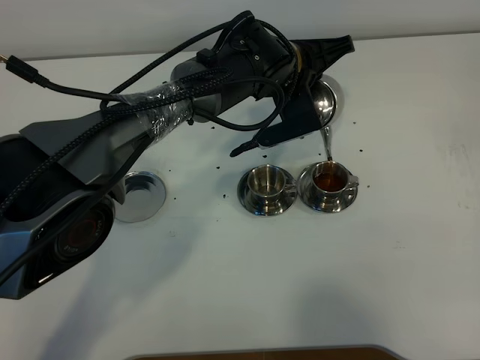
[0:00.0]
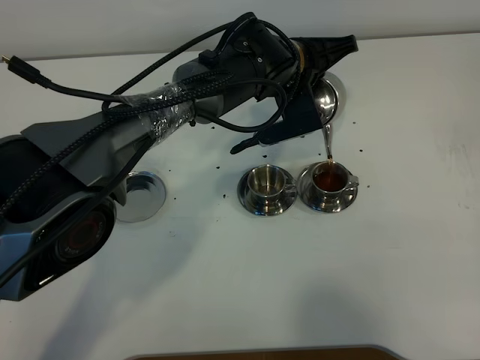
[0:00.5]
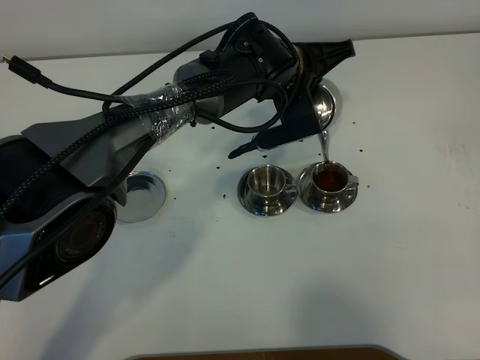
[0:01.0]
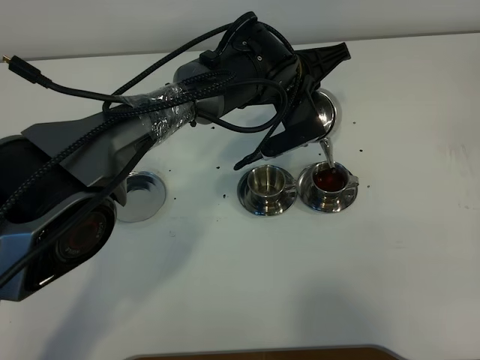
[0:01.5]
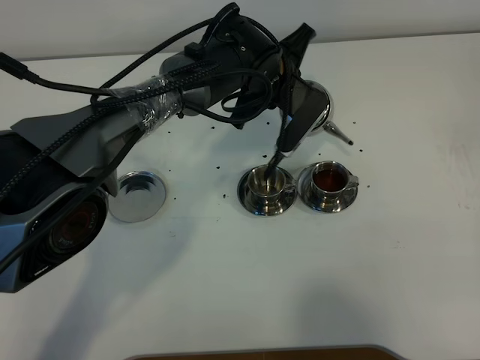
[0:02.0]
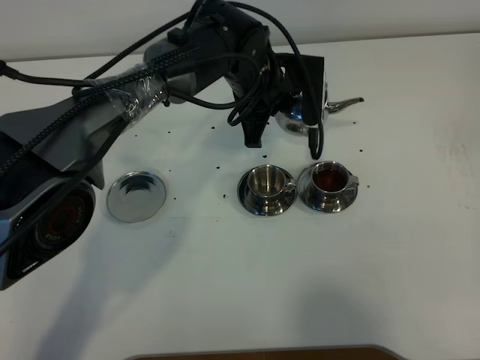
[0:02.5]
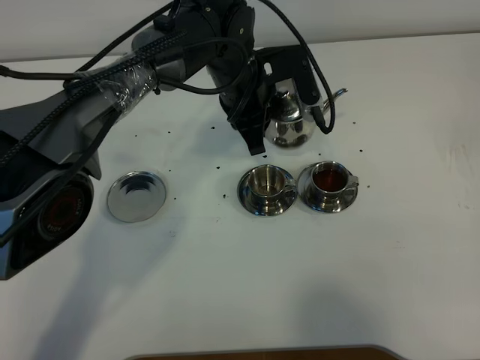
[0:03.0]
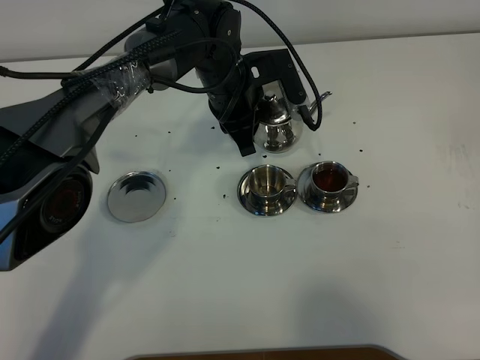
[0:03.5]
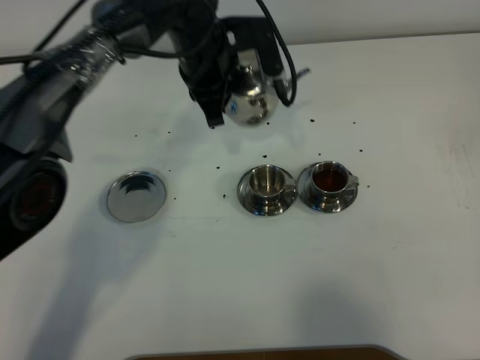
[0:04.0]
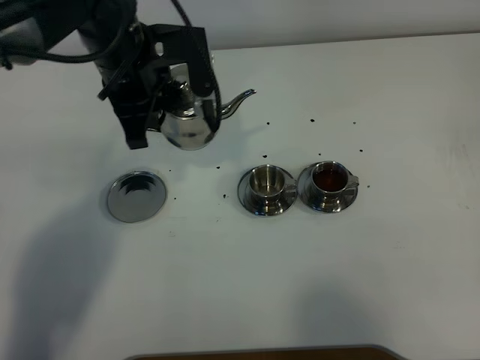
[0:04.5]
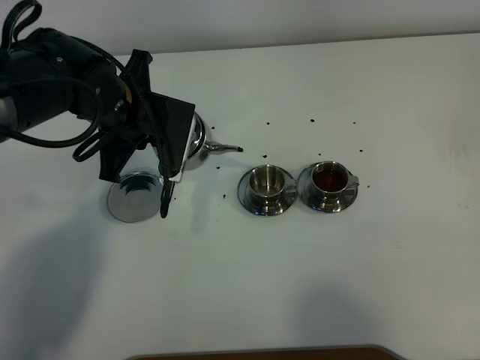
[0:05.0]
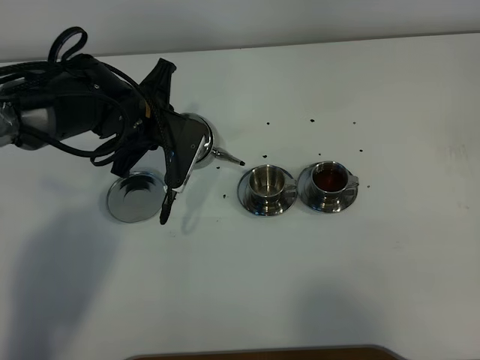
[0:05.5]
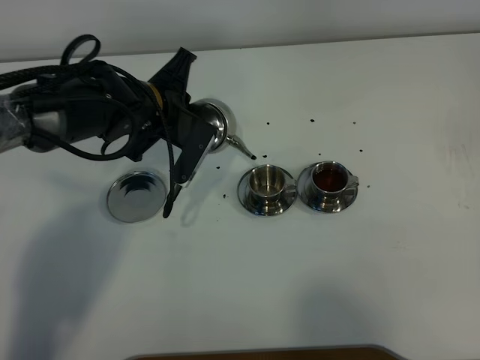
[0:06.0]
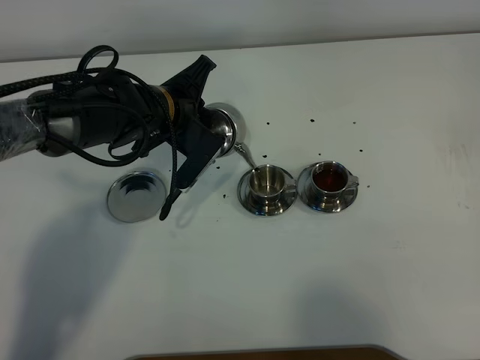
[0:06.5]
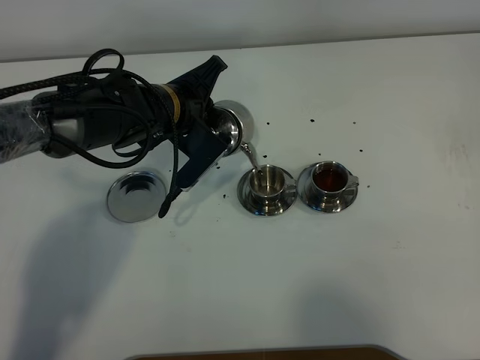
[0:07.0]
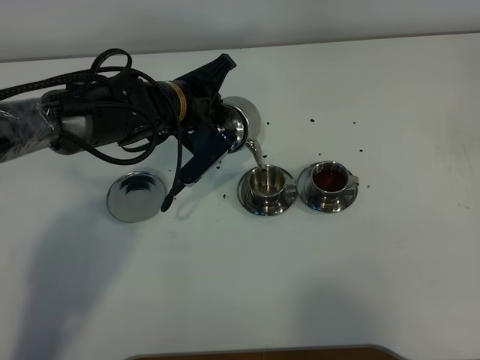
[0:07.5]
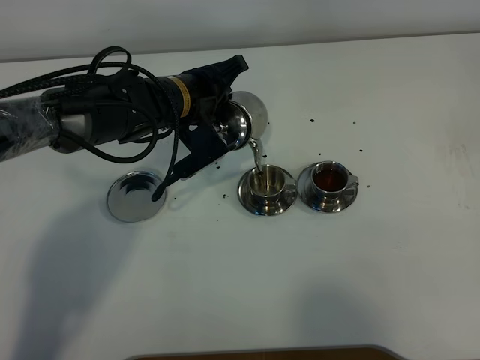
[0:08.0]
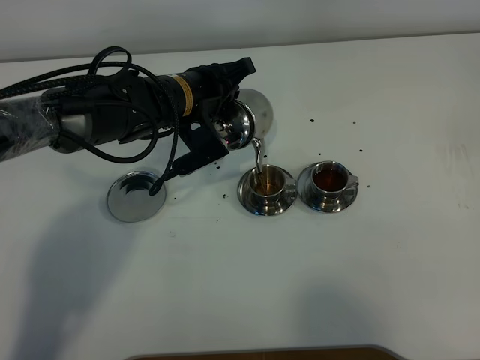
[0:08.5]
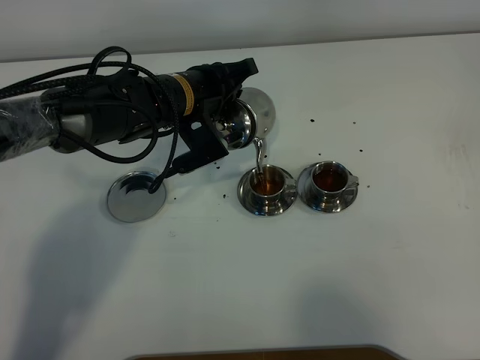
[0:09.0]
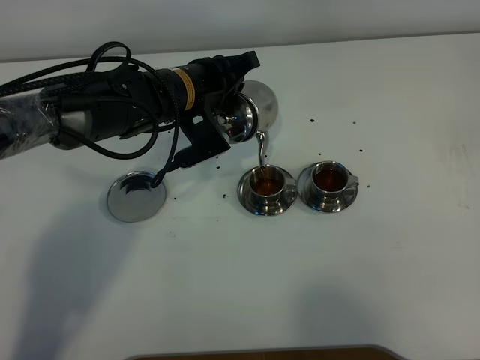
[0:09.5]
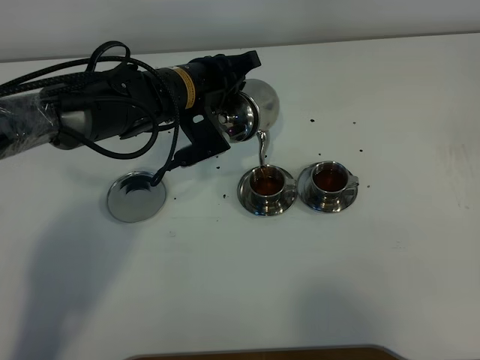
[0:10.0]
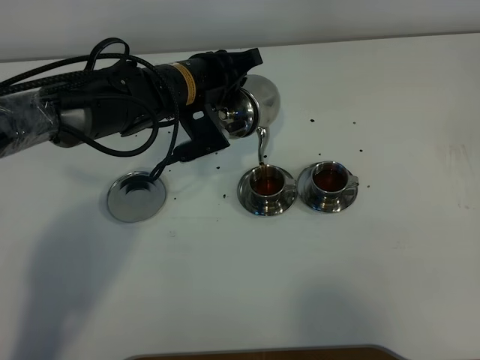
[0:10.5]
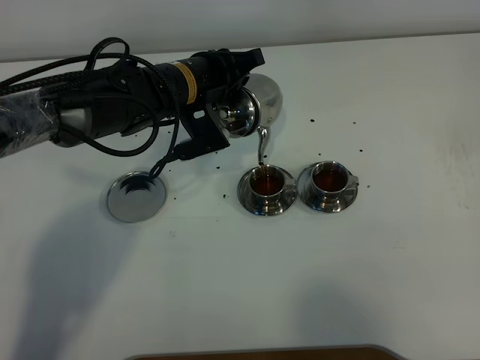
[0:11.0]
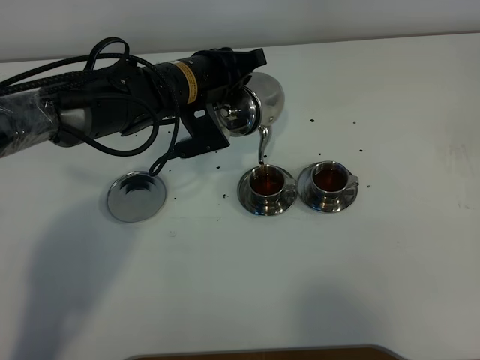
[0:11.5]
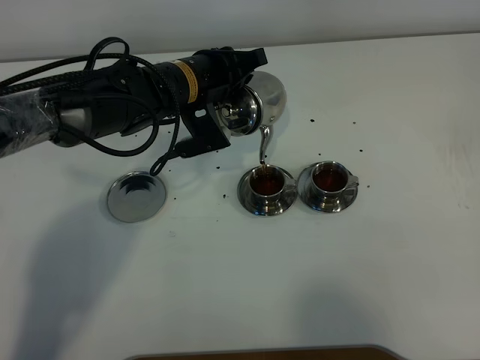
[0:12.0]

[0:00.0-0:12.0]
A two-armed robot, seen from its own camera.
Task of the whole recording: grasp the stainless steel teapot and pour the tea into the two stainless steel teacups one by one, put the stainless steel teapot back in its original place.
0:02.0 to 0:04.0: The left gripper moves to the left and upward, some 10 cm.
0:04.0 to 0:06.0: The left gripper heads downward, to the left and backward, covering approximately 10 cm.
0:08.0 to 0:12.0: There are only small adjustments of the grippers.

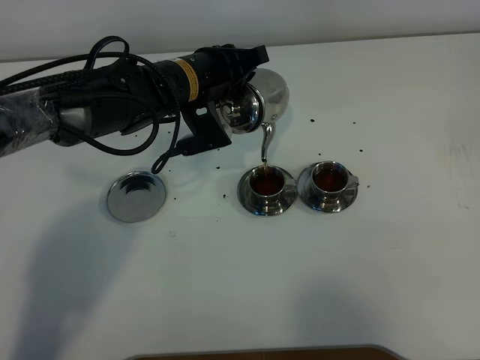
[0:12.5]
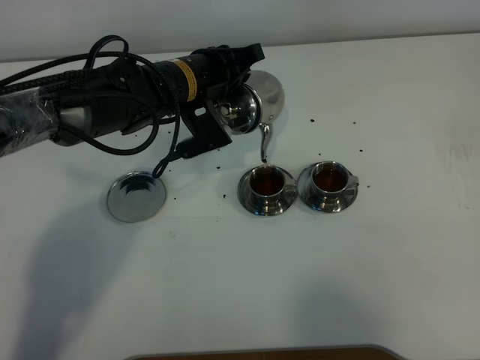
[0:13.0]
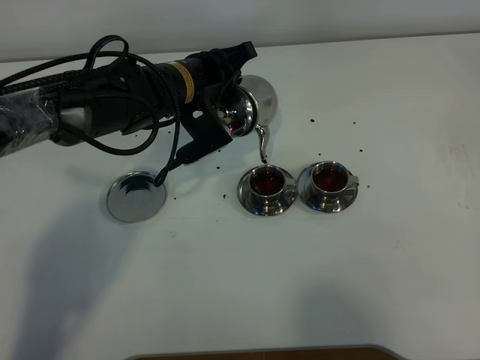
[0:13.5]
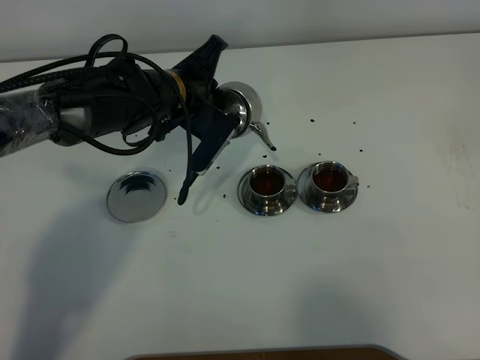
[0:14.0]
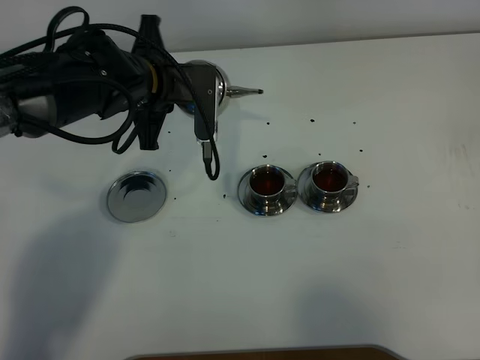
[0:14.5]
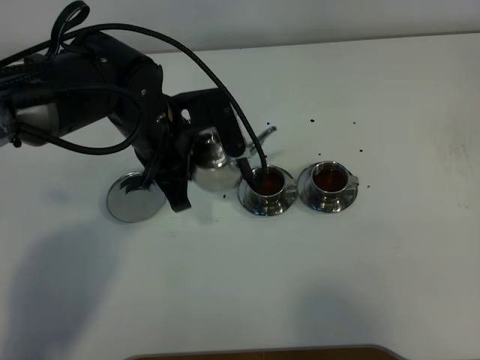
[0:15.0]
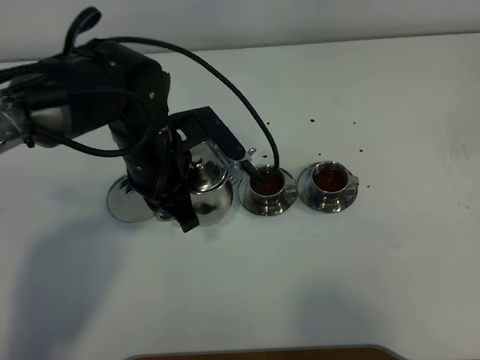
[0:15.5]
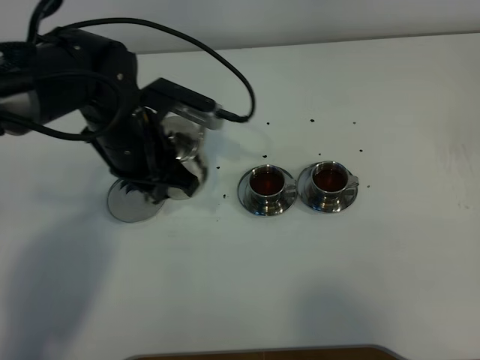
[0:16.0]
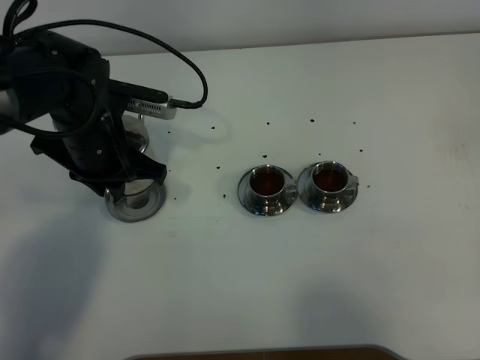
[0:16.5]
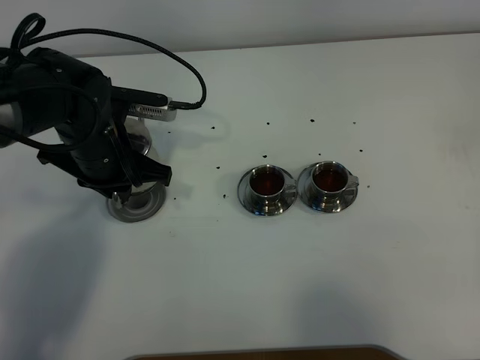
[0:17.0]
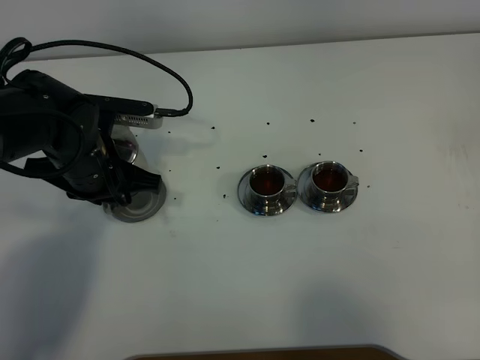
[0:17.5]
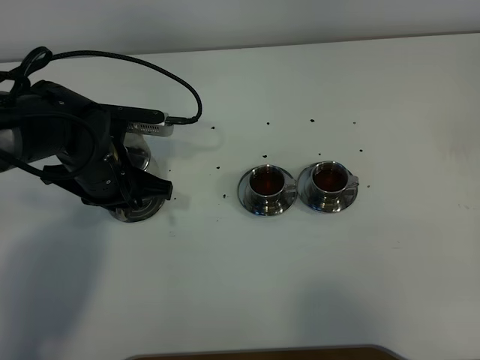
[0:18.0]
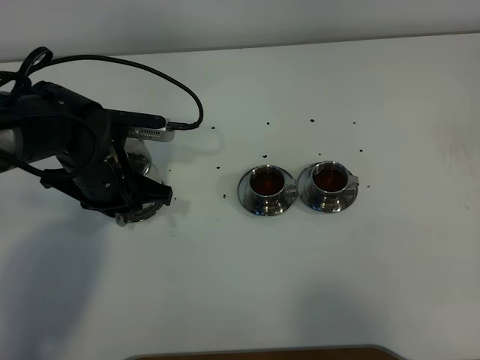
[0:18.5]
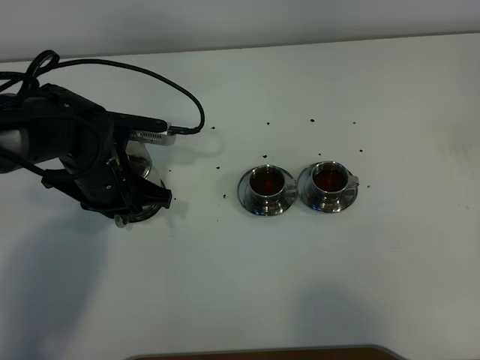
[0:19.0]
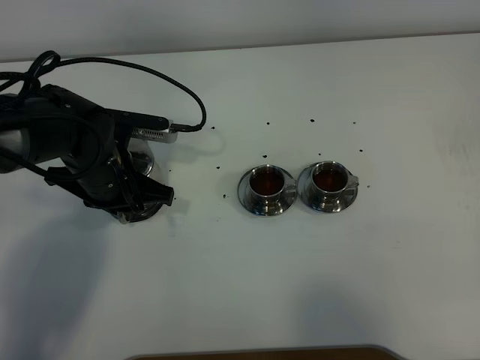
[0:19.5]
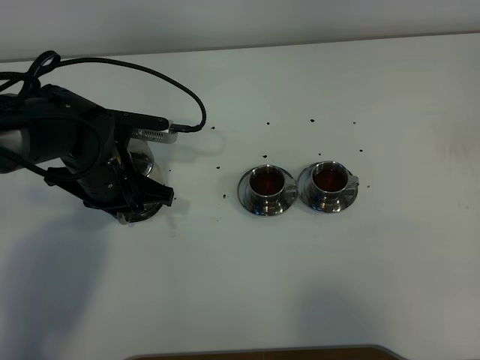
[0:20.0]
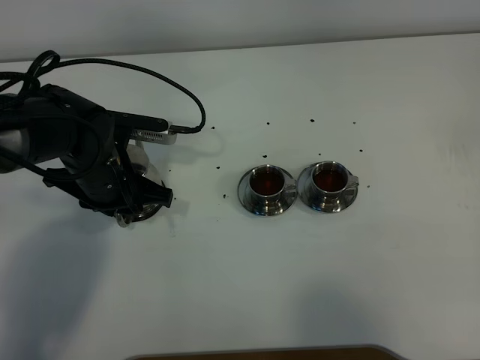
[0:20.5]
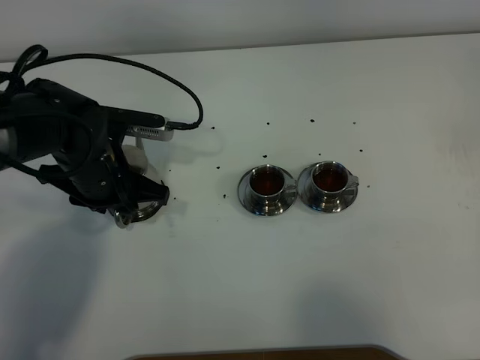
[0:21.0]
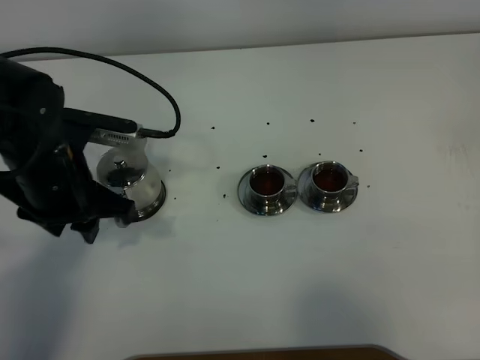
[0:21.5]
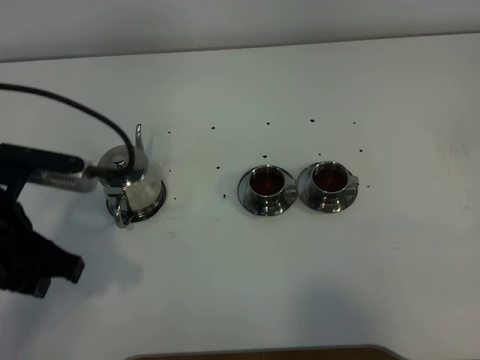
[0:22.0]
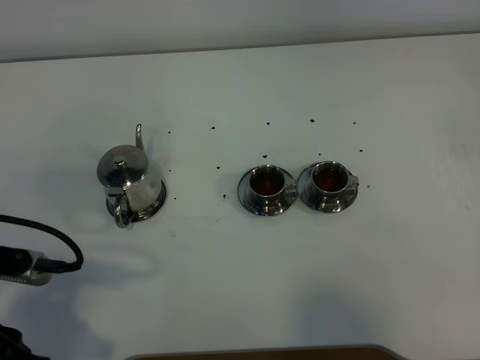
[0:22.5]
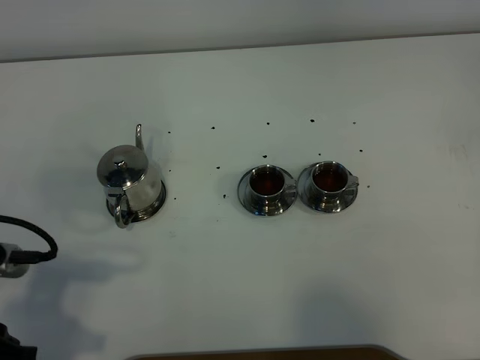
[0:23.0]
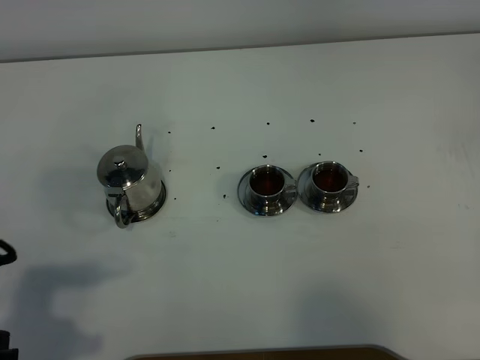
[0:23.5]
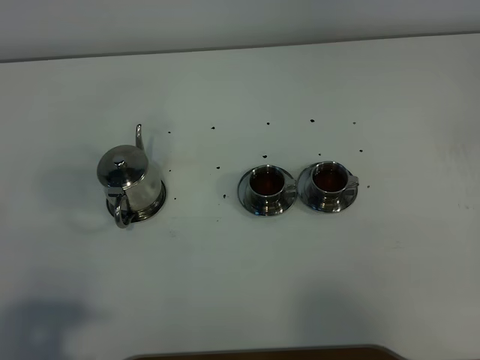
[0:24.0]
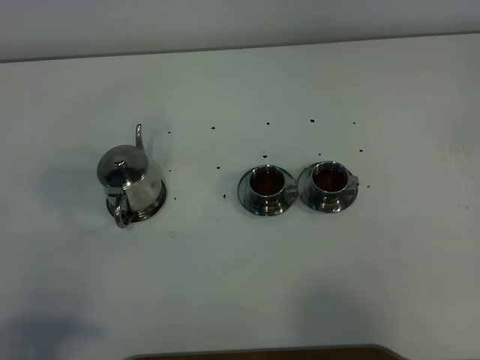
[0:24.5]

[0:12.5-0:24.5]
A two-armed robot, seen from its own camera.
Task of the whole recording: grasp the stainless steel teapot and pour the tea into the two stainless steel teacups one by one, put the stainless steel teapot back in its original place.
0:12.5 to 0:14.5: The left gripper shifts about 5 cm to the left.
0:14.5 to 0:16.5: The left gripper is displaced to the left by some 5 cm.
0:16.5 to 0:18.5: There are only small adjustments of the grippers.
0:18.5 to 0:20.5: The left gripper opens its fingers.
0:20.5 to 0:22.5: The left gripper travels backward by about 20 cm, and opens.
0:22.5 to 0:24.5: The left gripper heads backward, covering roughly 10 cm.

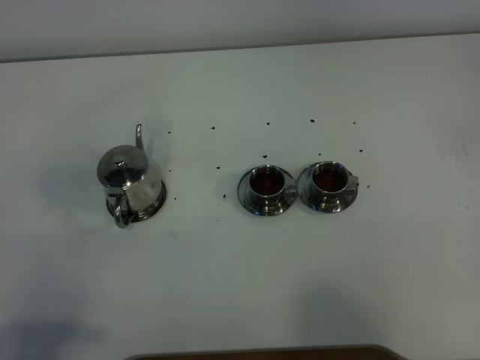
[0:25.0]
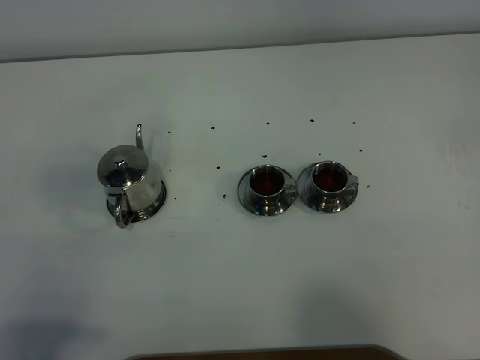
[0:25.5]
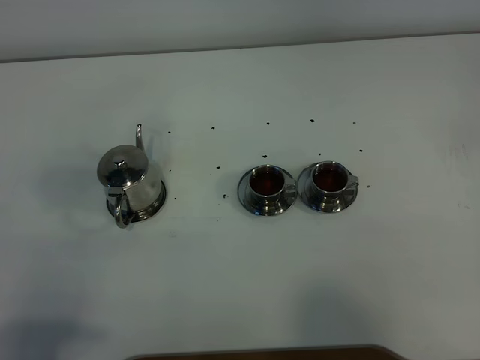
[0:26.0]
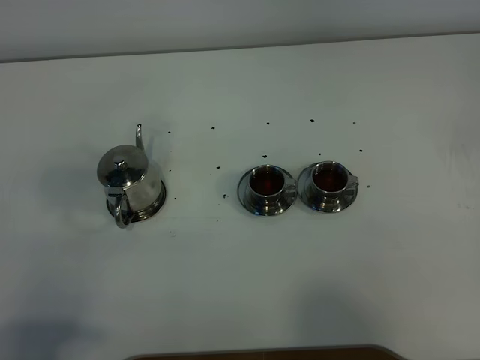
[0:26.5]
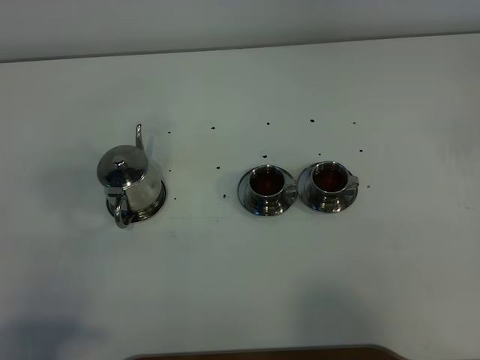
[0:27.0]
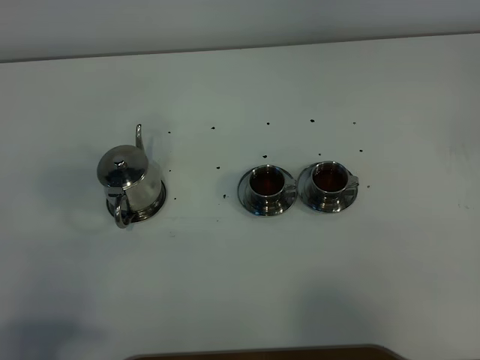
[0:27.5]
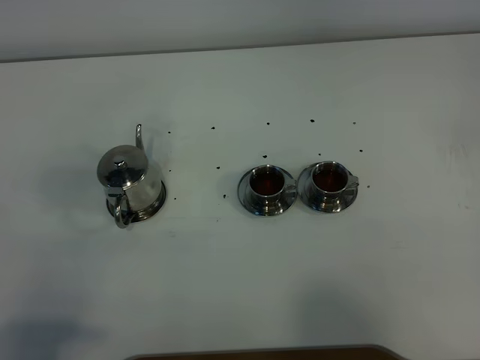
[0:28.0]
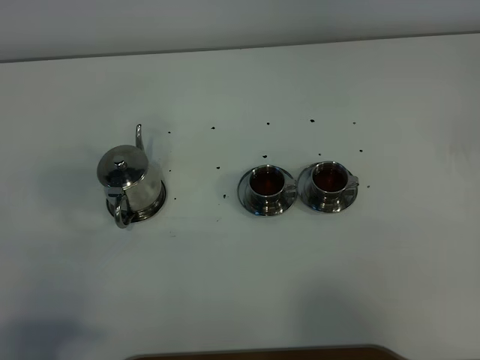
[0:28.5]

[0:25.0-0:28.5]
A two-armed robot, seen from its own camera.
Task of the whole recording: grasp the stainless steel teapot and pour the tea into the two stainless steel teacups one by one, put the stainless steel teapot back in its original place.
0:25.0 to 0:28.5: The two grippers keep their place.
